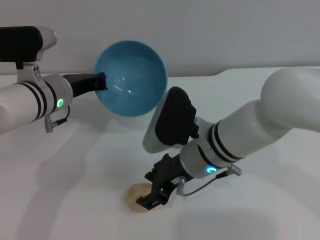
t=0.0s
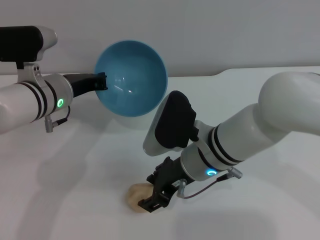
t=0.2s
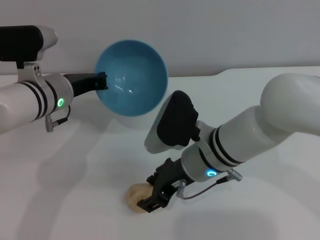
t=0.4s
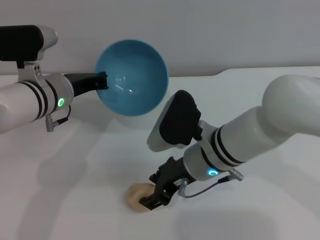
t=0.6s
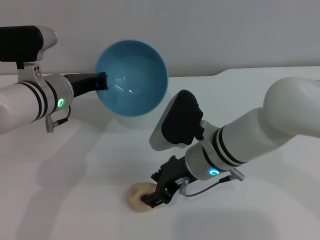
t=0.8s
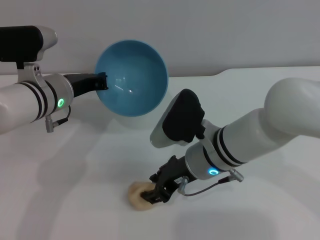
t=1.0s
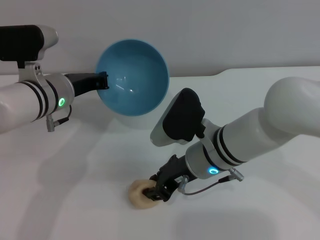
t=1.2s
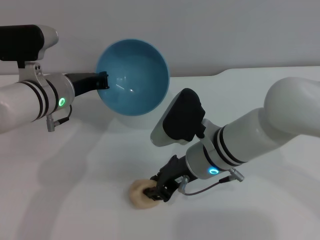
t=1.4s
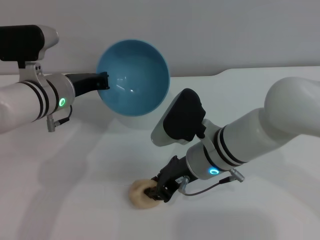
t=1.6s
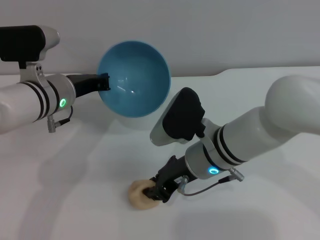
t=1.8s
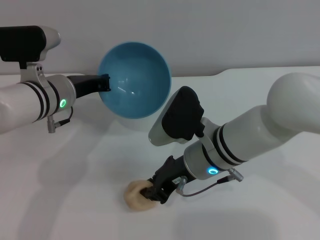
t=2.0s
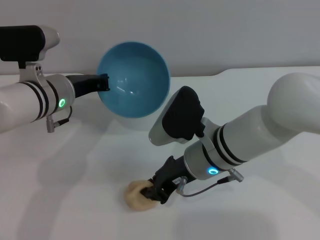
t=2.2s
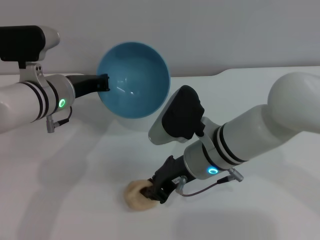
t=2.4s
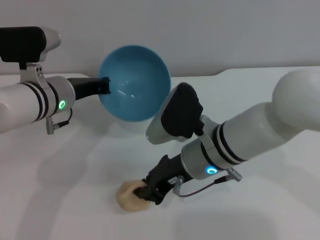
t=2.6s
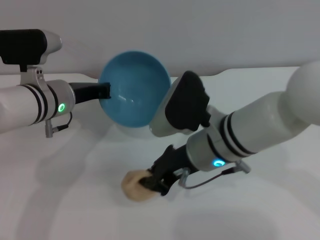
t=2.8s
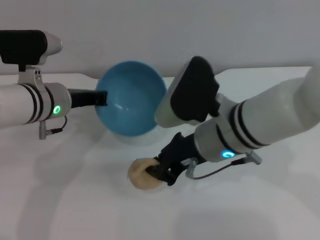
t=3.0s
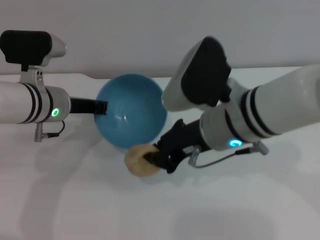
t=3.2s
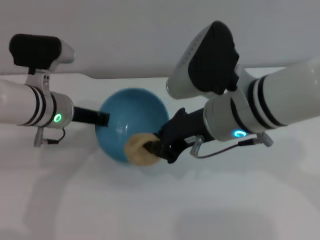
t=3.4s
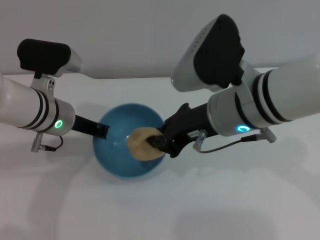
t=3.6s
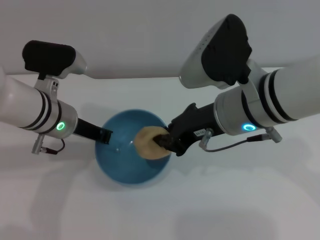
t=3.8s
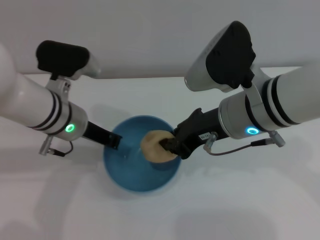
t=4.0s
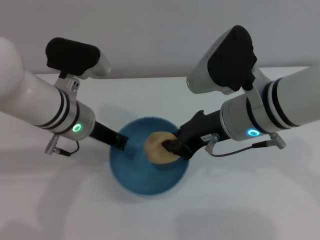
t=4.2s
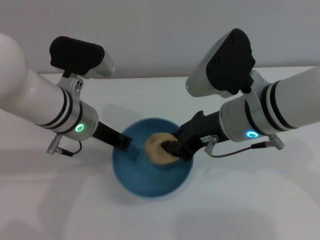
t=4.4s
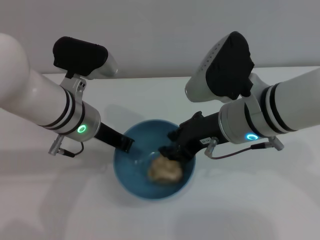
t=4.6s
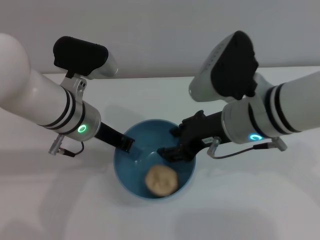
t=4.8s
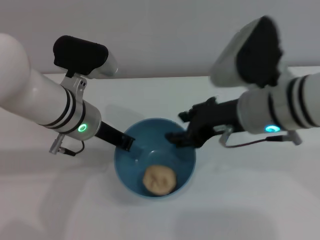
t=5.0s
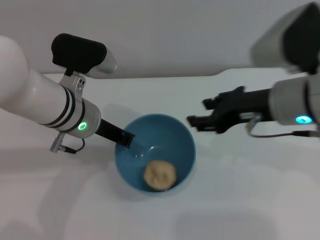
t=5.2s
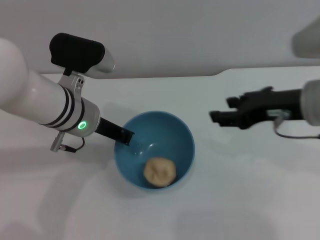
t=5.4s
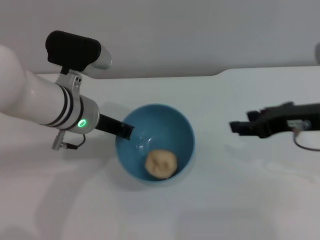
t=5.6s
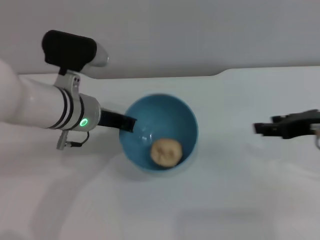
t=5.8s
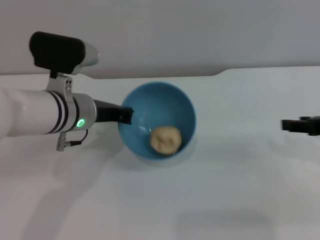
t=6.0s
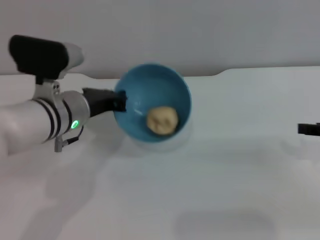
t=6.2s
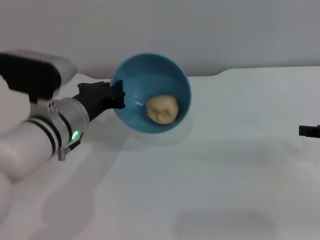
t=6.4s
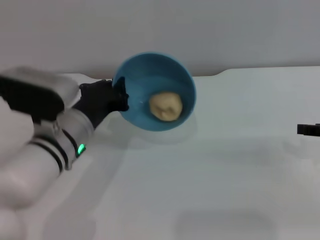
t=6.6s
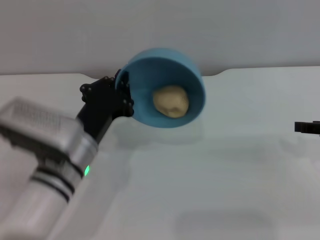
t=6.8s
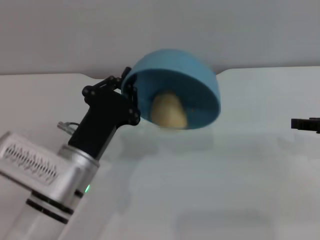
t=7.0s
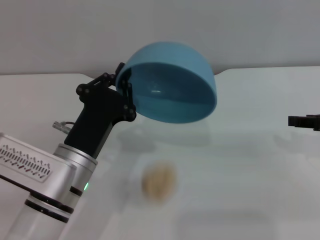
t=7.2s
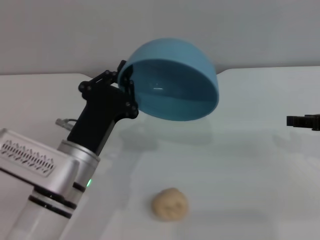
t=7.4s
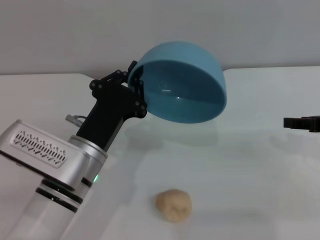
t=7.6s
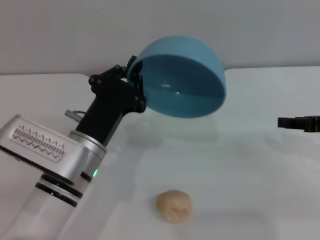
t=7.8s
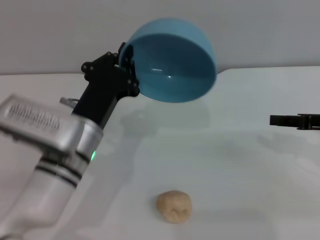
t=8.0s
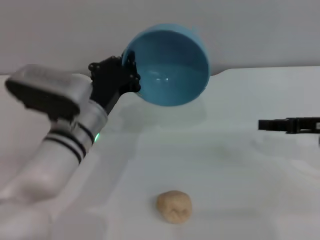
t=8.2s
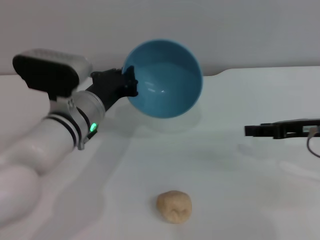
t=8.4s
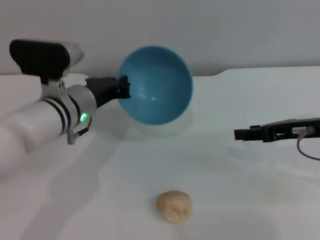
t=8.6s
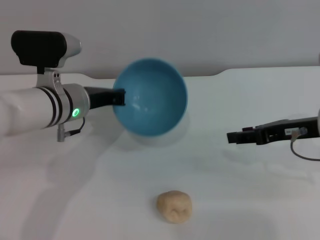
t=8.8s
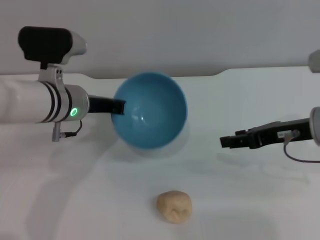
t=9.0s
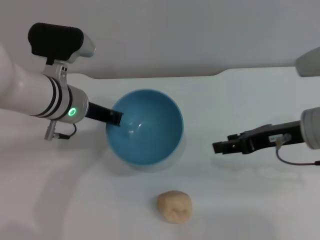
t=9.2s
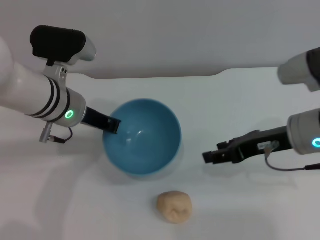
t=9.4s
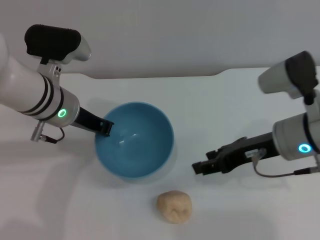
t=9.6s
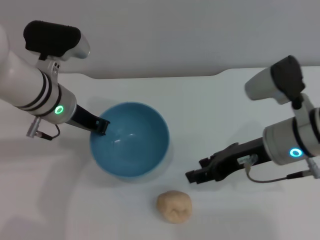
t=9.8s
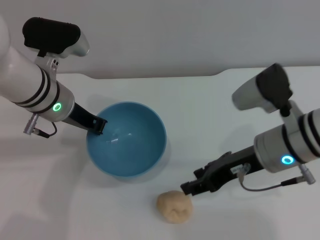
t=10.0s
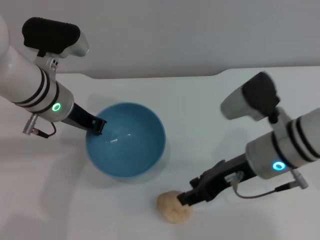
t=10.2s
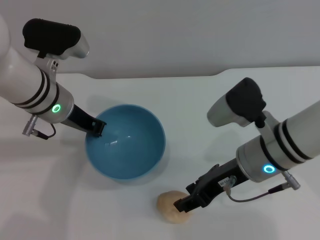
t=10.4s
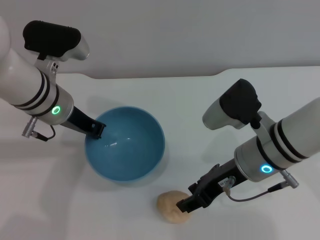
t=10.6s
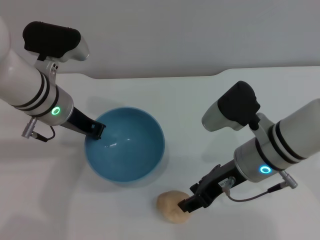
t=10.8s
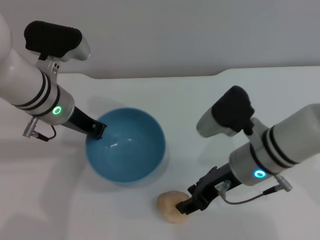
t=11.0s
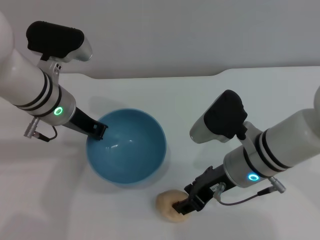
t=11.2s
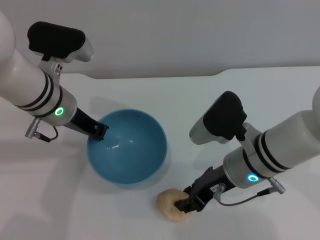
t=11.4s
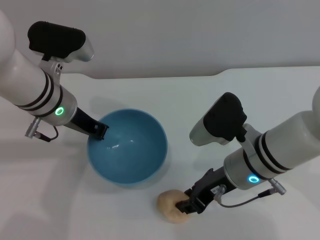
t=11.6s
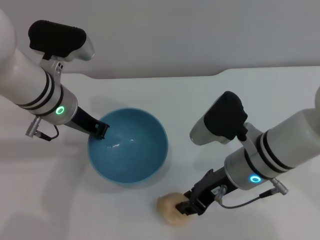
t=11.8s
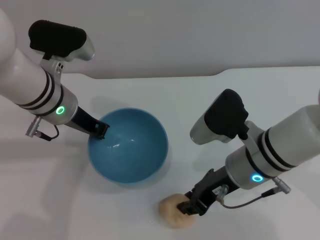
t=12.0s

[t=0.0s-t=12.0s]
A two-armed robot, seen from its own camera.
Task of the whole recording: put the egg yolk pastry into the blue bowl and pour it out repeatedly.
Step, t=0.0s to t=2.6s: Pick up the egg yolk pastry with the right gripper.
Step, t=3.0s to t=5.6s: Place the egg yolk pastry into the bowl.
Step, t=6.0s to t=8.6s: Pour the egg yolk pastry out of bowl.
t=0.0s to t=1.6s: The right gripper closes up.
t=1.6s to t=3.0s: The right gripper goes roughly 5 cm upward.
t=3.0s to t=4.4s: The left gripper changes place by about 5 cm.
t=4.4s to t=6.0s: The right gripper travels to the right by approximately 20 cm, and opens up.
t=6.0s to t=7.6s: The left gripper goes roughly 10 cm backward and downward.
t=7.6s to t=9.0s: The right gripper moves to the left, approximately 10 cm. The left gripper is displaced forward and upward by some 15 cm.
t=9.0s to t=10.4s: The right gripper heads to the left, covering approximately 10 cm.
t=10.4s to t=12.0s: The right gripper closes its fingers.

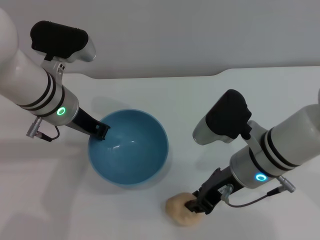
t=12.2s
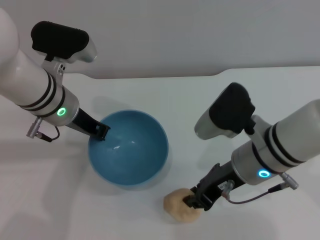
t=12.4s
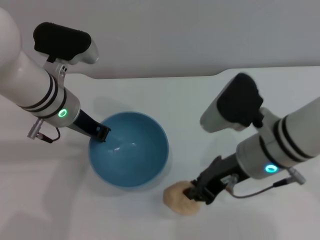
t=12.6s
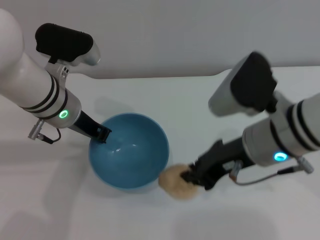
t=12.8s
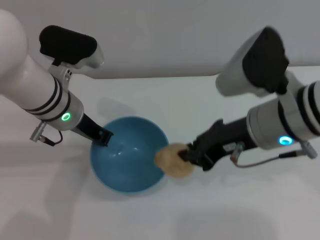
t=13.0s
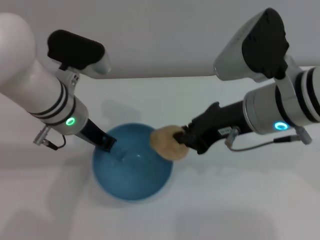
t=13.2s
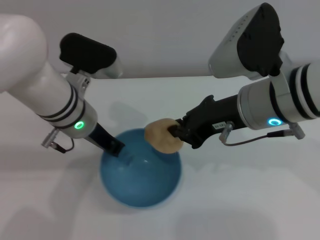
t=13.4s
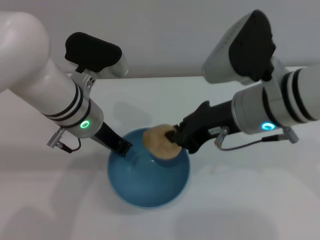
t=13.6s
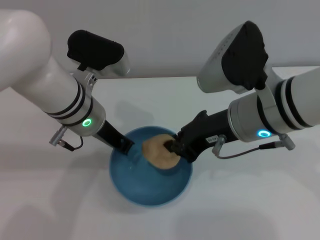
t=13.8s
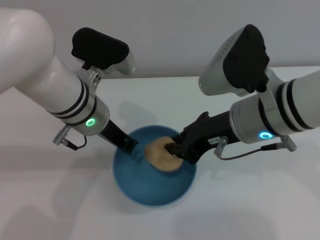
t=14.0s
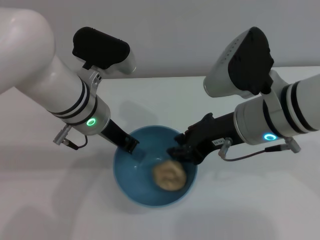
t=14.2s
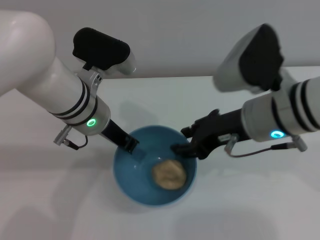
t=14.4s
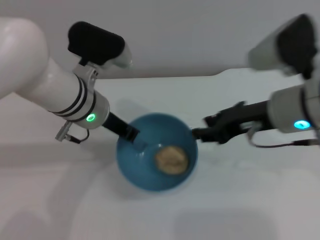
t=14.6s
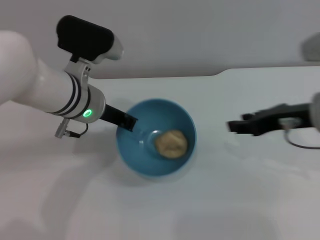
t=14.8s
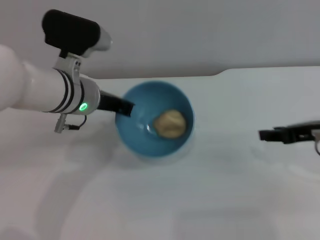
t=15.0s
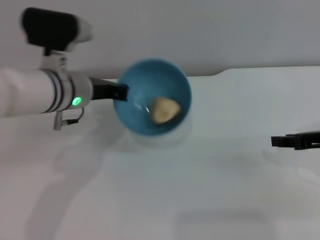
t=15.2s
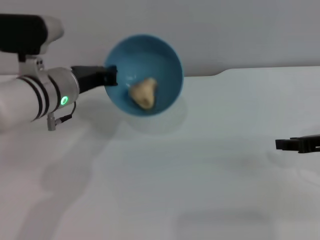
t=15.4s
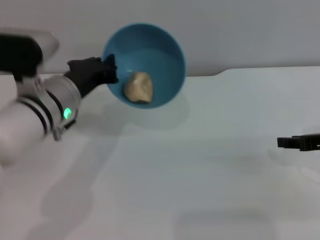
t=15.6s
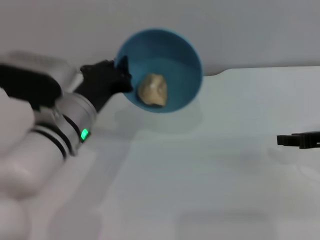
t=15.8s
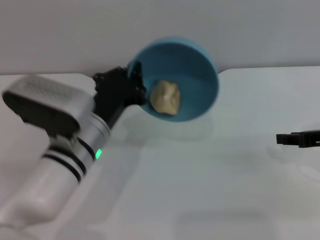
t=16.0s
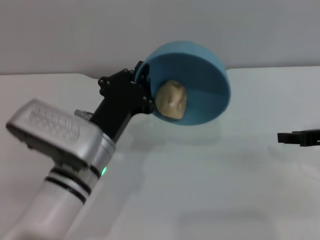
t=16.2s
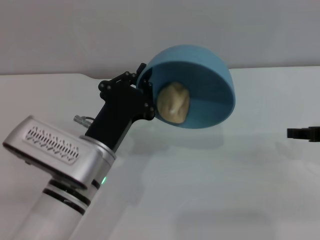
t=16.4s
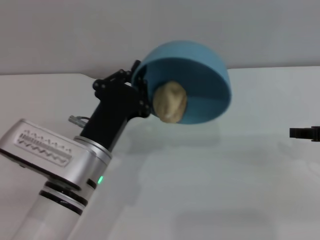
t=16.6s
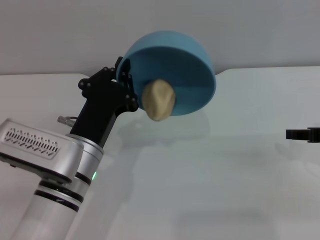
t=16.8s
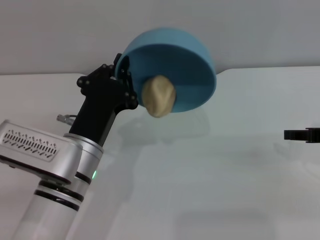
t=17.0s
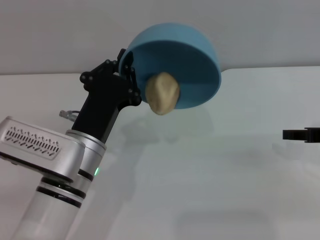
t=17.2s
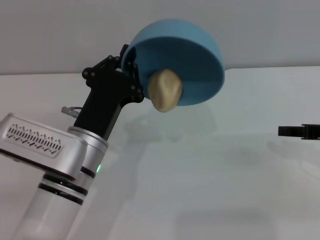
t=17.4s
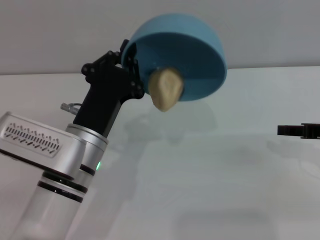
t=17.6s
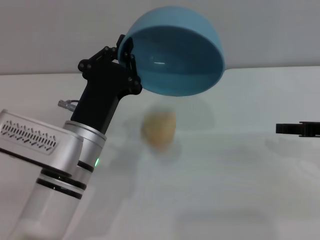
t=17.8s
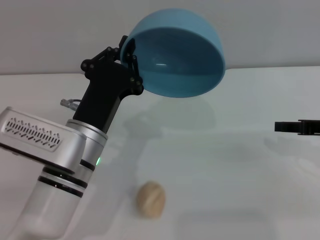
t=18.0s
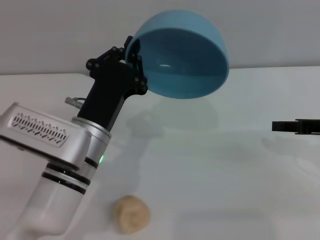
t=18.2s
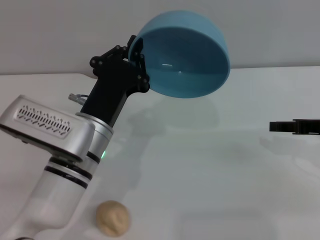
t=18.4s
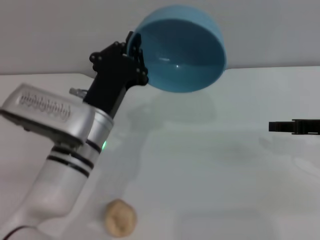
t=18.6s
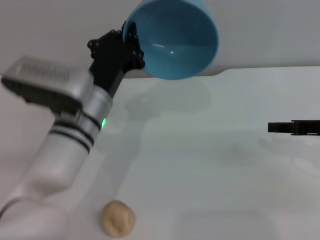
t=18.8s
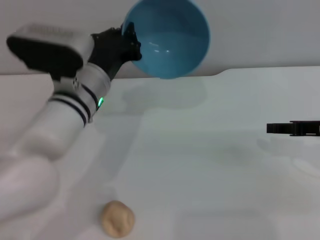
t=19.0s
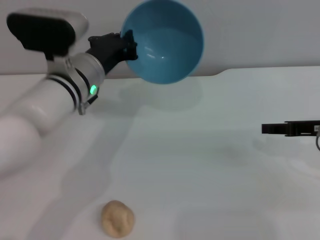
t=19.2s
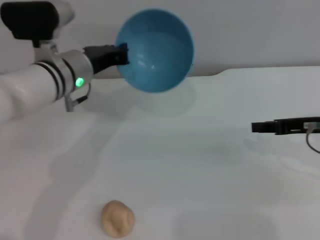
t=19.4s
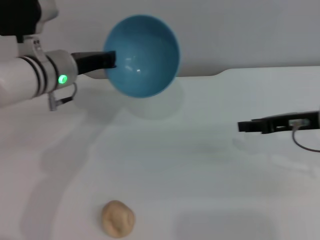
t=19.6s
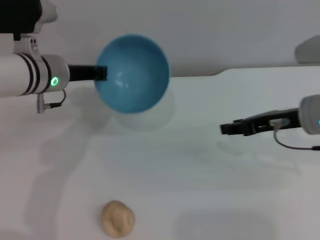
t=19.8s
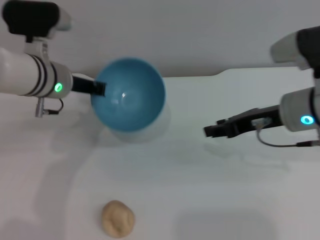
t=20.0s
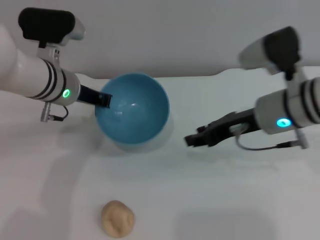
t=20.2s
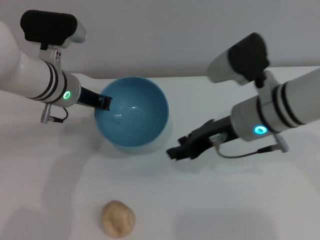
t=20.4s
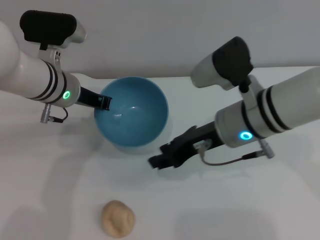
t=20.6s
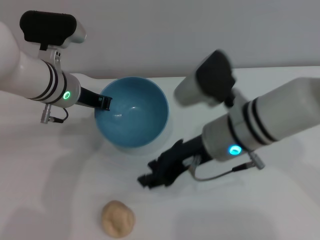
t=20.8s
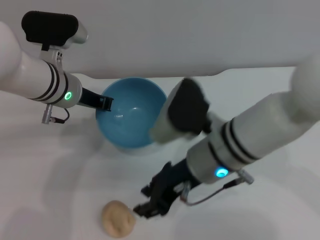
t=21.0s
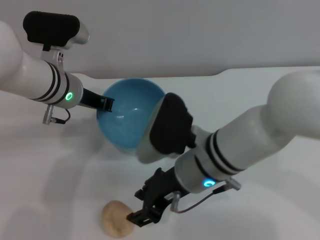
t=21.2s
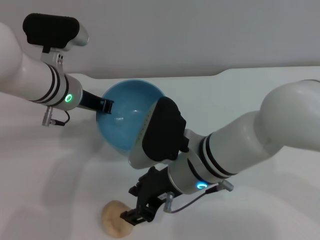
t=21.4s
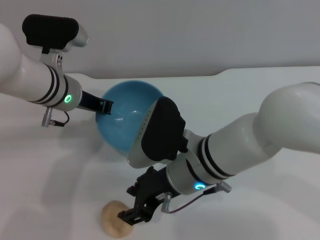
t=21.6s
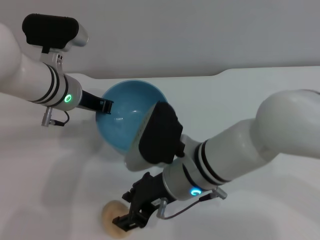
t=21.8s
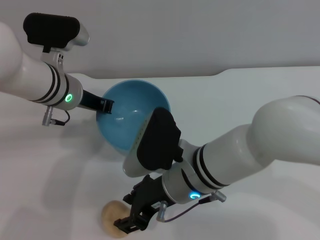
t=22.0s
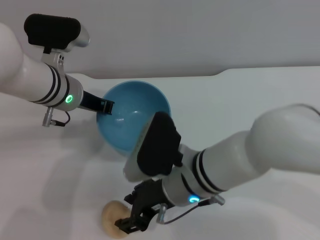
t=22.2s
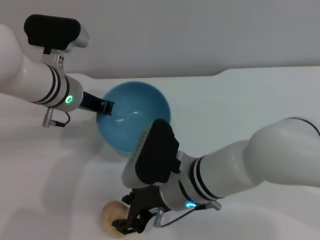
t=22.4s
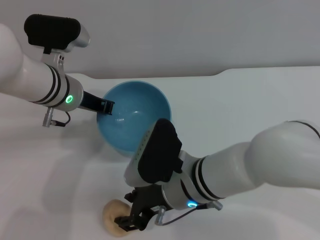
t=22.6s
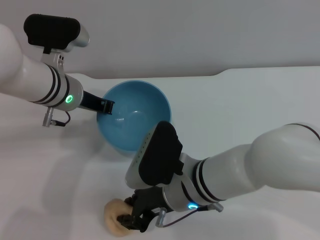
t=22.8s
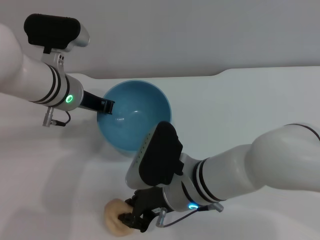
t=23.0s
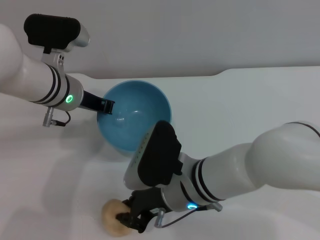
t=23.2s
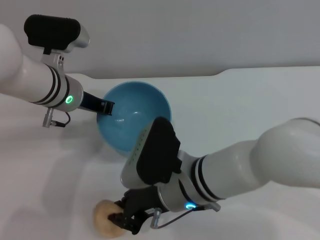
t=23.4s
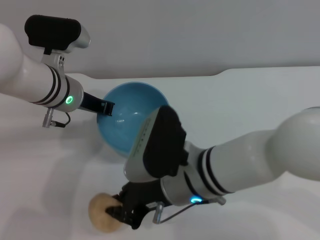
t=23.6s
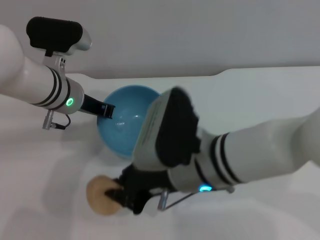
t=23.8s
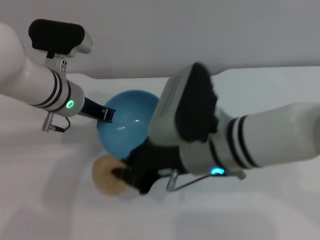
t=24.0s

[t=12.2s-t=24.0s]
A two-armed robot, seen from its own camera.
Task of the whole recording: put the egg yolk pastry into the blue bowl and pour it out repeatedly.
Step, t=13.0s to t=15.0s: Place the egg yolk pastry into the bowl.
Step, t=15.2s to t=17.8s: Pour the egg yolk pastry out of bowl.
t=12.2s to t=13.6s: The right gripper shifts some 10 cm upward.
t=13.6s to t=15.2s: The right gripper moves to the right, approximately 20 cm, and opens up.
t=15.2s to t=16.6s: The left gripper moves backward and downward, some 15 cm.
t=18.2s to t=19.6s: The left gripper heads forward, to the left and upward, covering some 15 cm, while the right gripper heads to the left, covering roughly 5 cm.
t=19.6s to t=21.0s: The right gripper heads to the left, covering about 20 cm.
t=21.0s to t=22.6s: The right gripper shifts about 5 cm downward.
t=22.6s to t=24.0s: The right gripper travels upward by about 10 cm, and closes.
